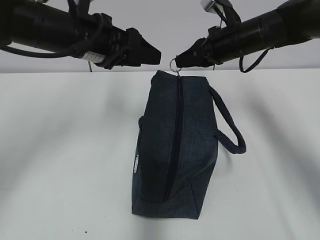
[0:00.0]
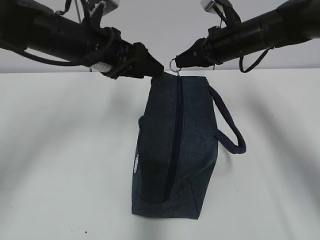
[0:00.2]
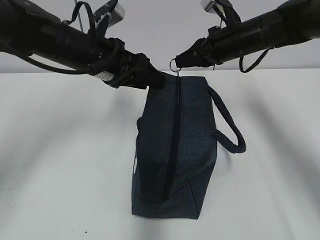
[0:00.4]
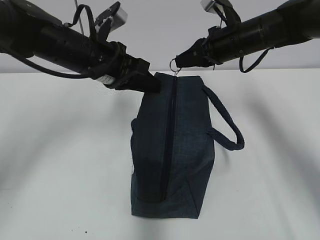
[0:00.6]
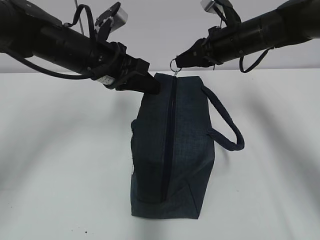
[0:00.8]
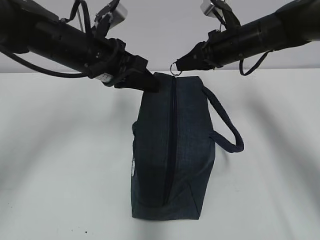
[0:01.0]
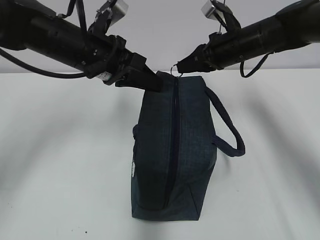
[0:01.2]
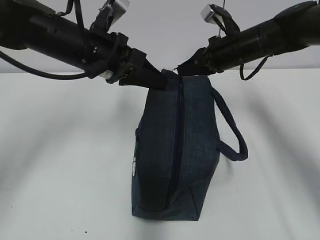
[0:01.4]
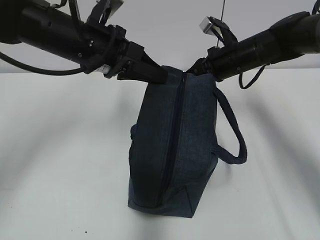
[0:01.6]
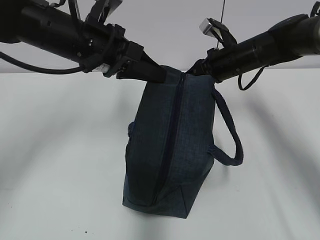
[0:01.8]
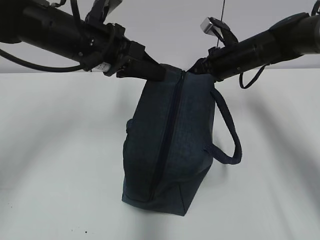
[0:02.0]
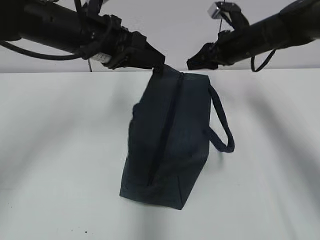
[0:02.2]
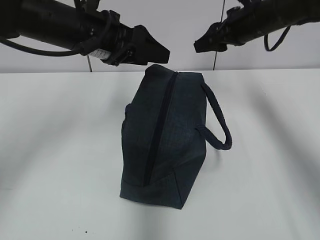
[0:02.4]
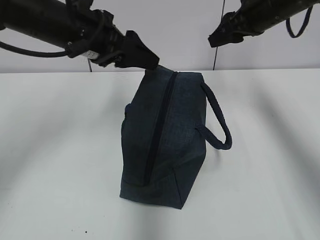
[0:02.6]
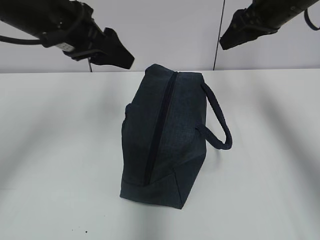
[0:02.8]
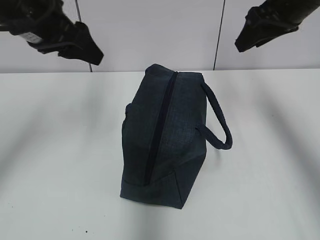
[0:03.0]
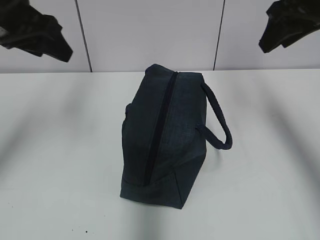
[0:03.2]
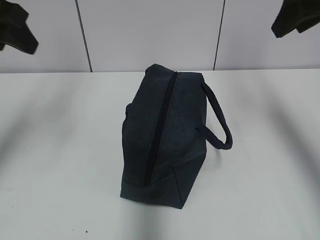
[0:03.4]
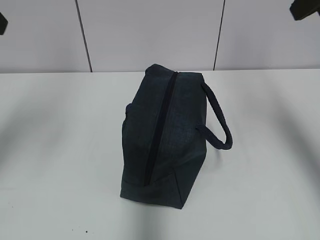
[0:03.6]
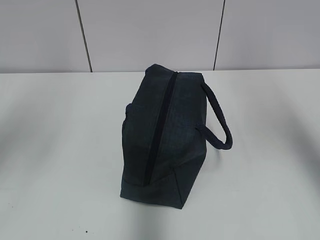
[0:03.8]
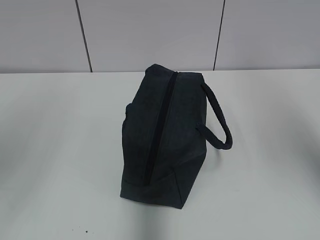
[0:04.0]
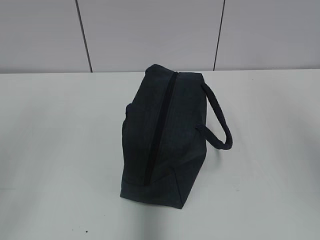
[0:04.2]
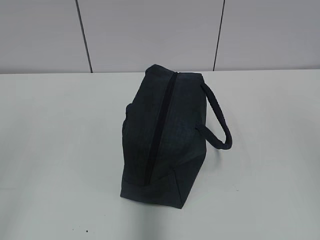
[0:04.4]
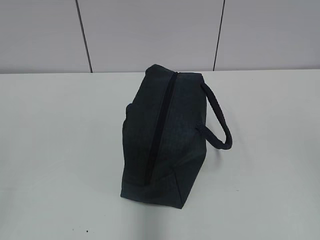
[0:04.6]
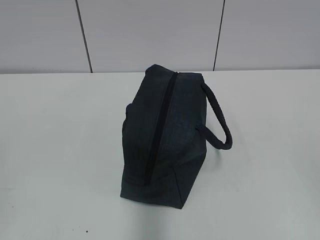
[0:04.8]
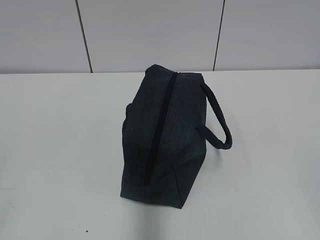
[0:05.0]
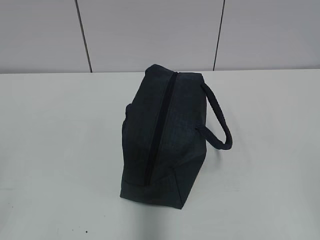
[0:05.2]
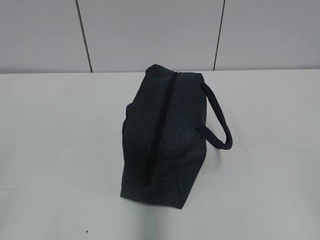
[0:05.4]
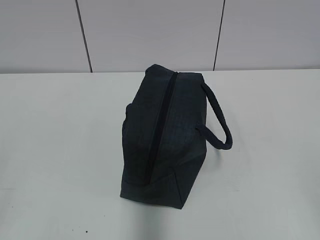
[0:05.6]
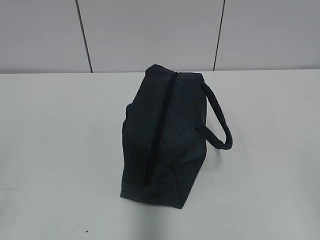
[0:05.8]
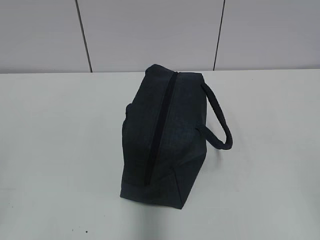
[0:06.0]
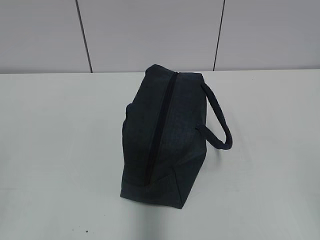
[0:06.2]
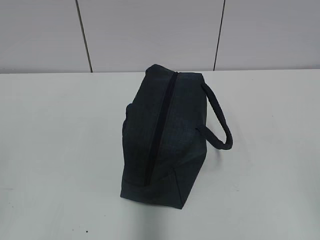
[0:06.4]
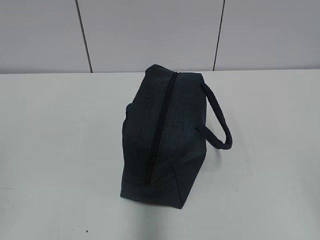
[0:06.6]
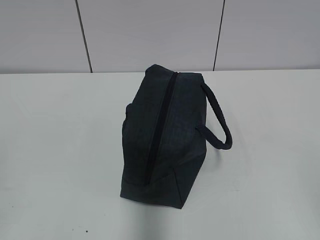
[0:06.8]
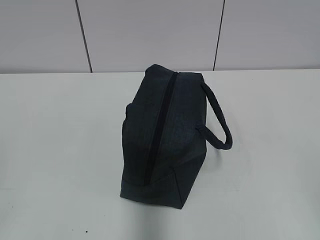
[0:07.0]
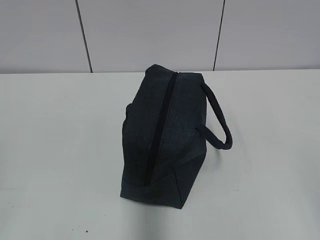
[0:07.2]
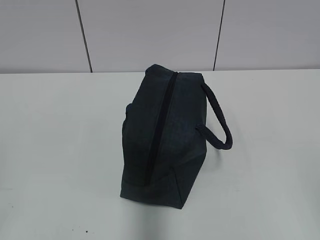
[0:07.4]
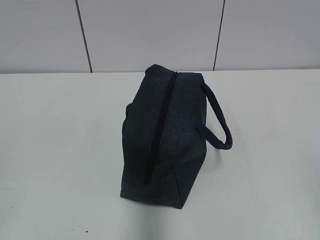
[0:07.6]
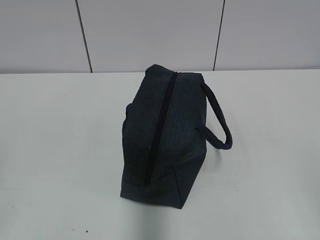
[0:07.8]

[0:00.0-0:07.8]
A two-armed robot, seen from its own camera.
0:00.0 to 0:01.6: The left gripper closes its fingers.
0:01.6 to 0:03.2: The left gripper heads to the left and upward, covering approximately 15 cm, and opens up. The right gripper is displaced upward and backward by some 20 cm, and opens up.
0:03.2 to 0:04.6: The two grippers go about 40 cm backward.
